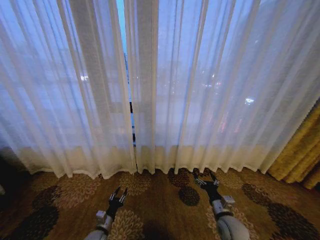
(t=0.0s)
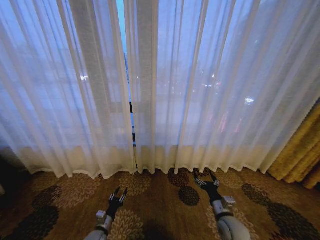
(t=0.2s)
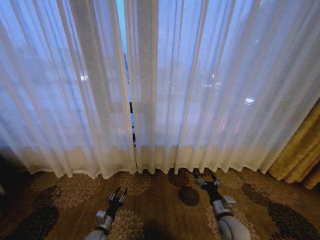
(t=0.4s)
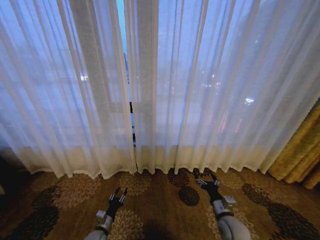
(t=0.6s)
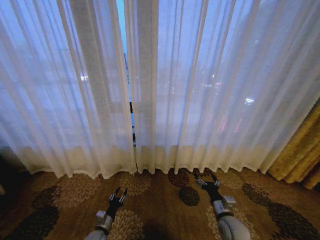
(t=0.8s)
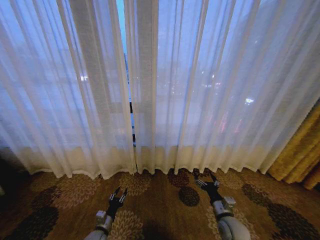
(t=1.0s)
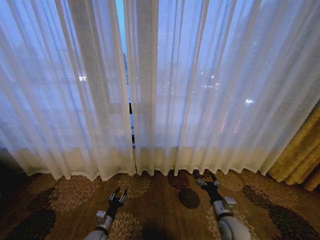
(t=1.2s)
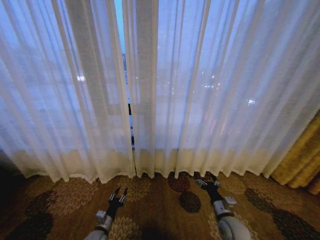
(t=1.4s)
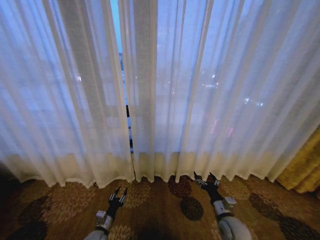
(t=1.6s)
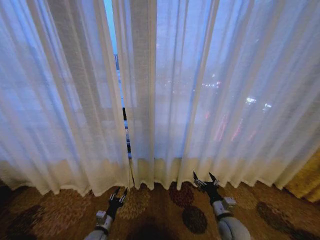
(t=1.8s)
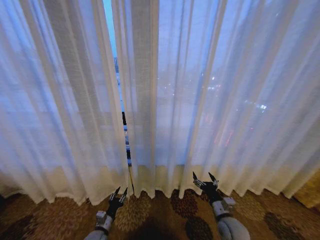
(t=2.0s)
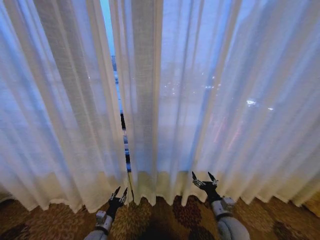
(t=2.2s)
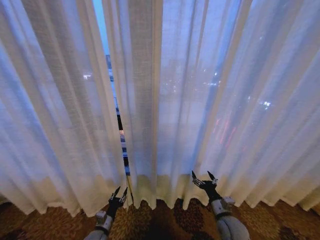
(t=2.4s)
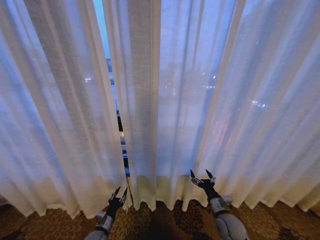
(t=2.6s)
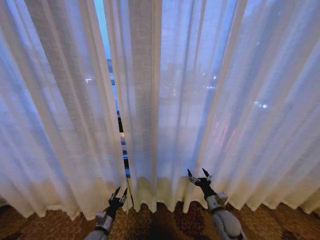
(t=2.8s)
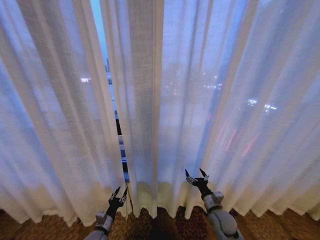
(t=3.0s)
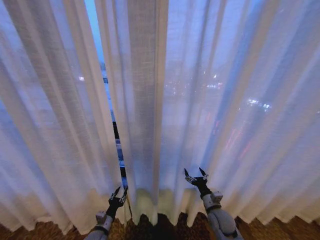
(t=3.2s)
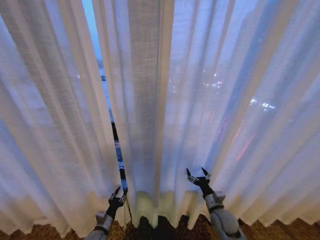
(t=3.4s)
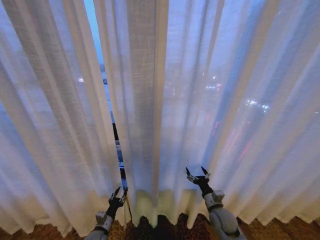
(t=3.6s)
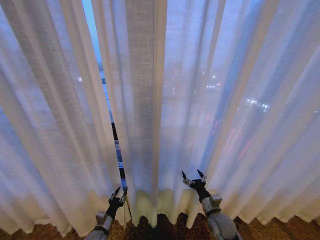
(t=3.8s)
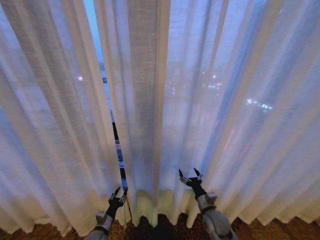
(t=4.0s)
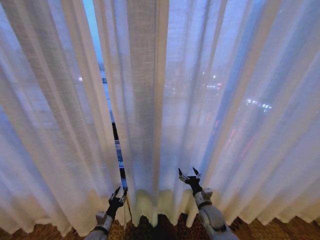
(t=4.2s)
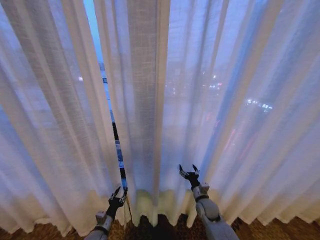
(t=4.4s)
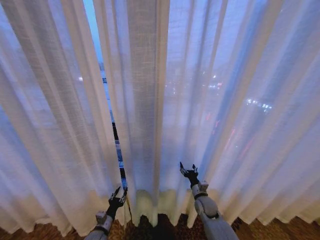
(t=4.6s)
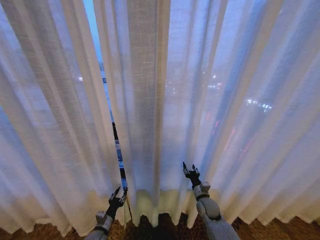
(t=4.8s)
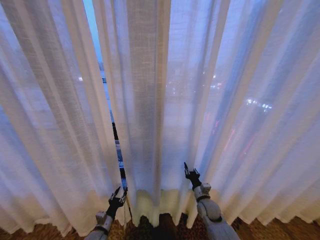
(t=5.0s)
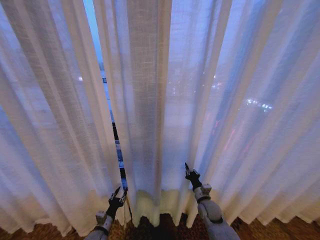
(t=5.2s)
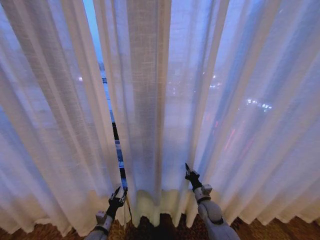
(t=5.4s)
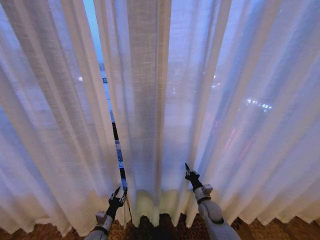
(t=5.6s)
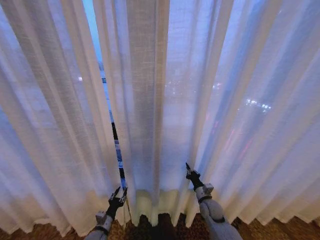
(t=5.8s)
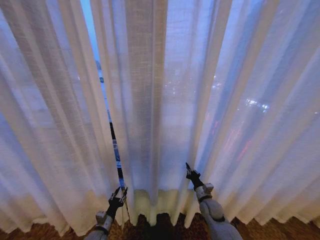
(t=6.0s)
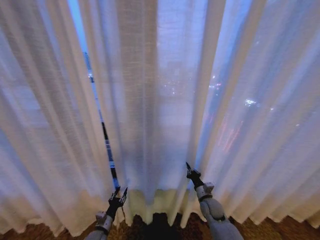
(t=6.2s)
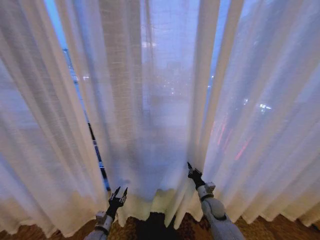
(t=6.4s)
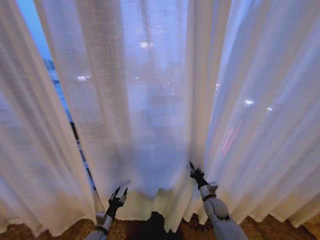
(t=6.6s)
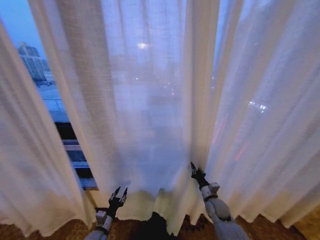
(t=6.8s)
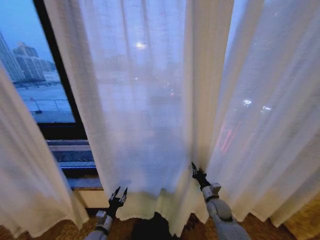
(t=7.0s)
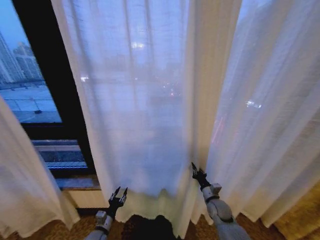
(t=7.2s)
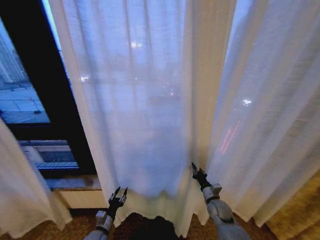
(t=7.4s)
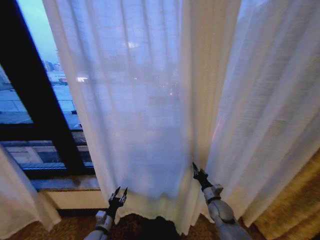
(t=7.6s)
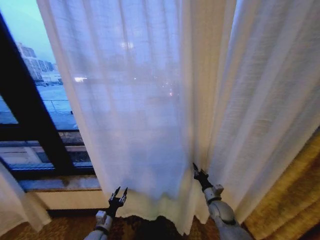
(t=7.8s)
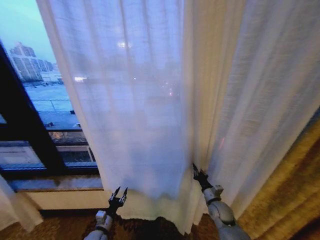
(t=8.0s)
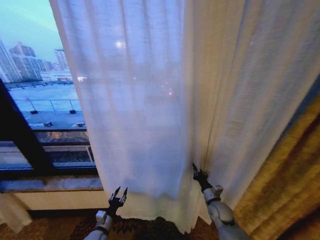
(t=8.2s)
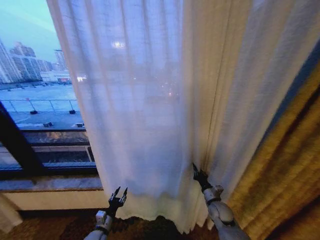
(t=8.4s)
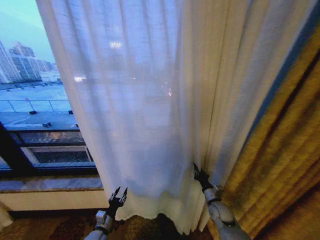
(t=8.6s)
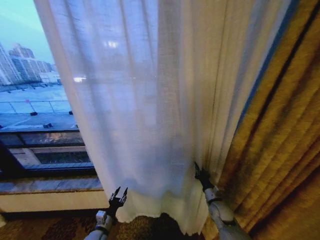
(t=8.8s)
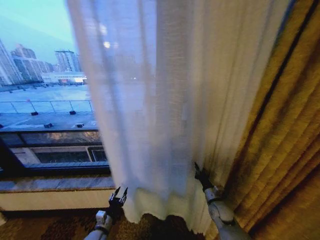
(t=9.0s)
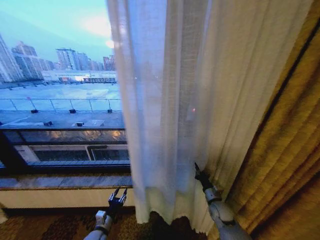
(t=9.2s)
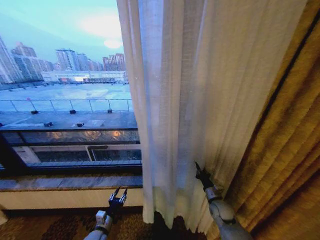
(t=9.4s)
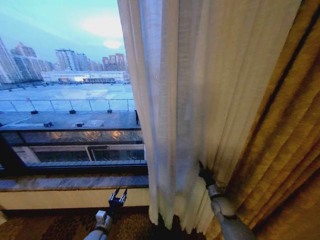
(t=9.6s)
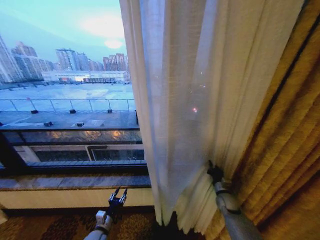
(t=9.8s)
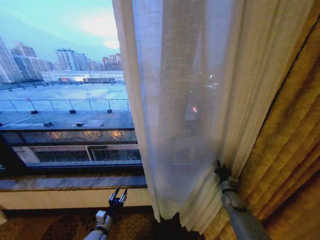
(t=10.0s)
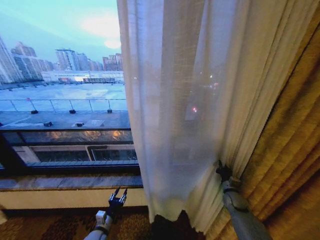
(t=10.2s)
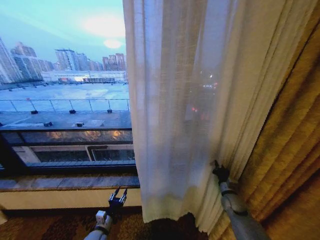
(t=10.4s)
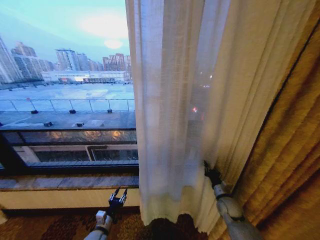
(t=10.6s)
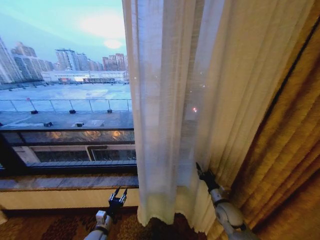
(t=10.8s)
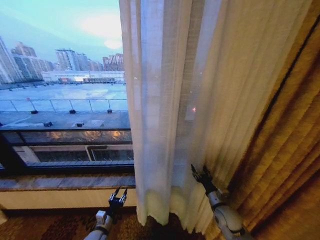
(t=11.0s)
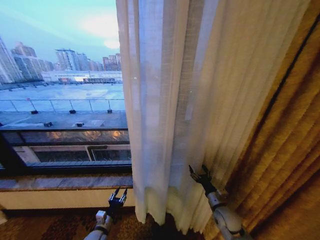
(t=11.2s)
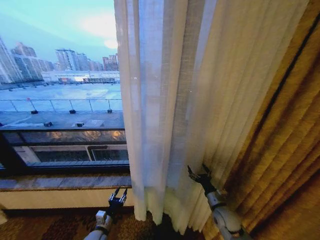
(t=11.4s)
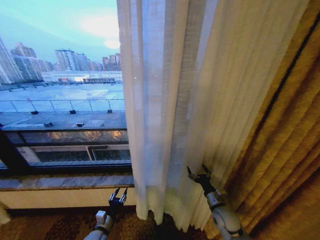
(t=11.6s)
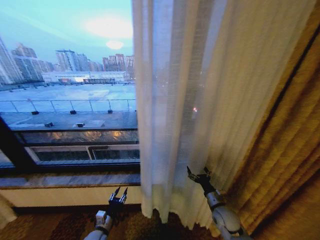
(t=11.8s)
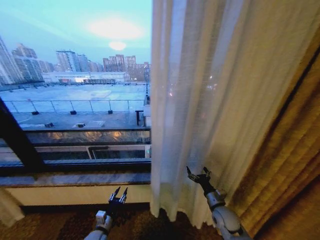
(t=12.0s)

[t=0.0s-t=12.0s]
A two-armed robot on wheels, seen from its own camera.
Task of the whole recording: Open the curtains by pulling them apart, changing their state from closed to fully open.
t=3.0s to t=4.4s: The right gripper goes roughly 5 cm forward.
t=4.4s to t=6.0s: The right gripper closes up.
t=9.0s to t=10.4s: The right gripper goes roughly 10 cm to the right.
t=10.4s to t=12.0s: The right gripper moves to the left and backward, roughly 10 cm, and opens up.

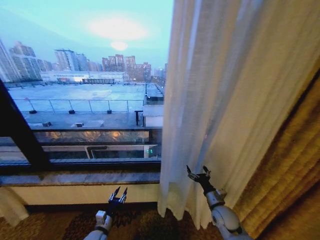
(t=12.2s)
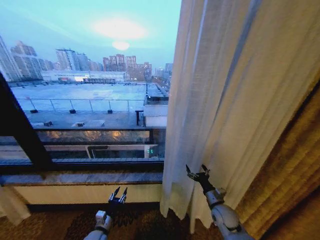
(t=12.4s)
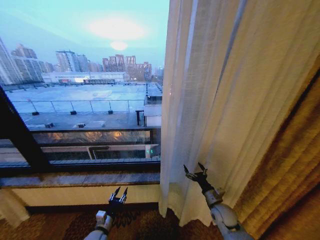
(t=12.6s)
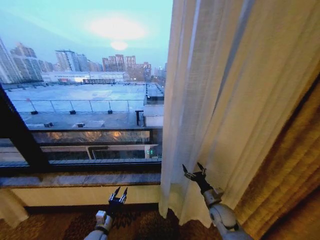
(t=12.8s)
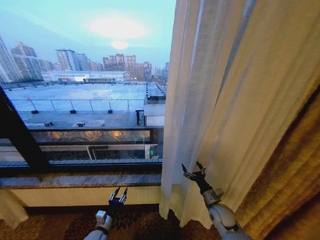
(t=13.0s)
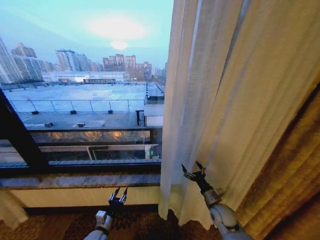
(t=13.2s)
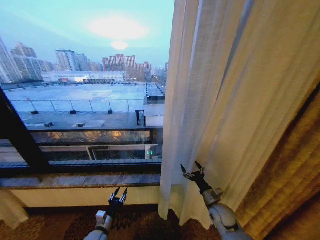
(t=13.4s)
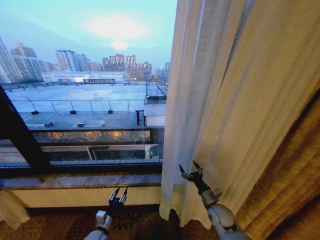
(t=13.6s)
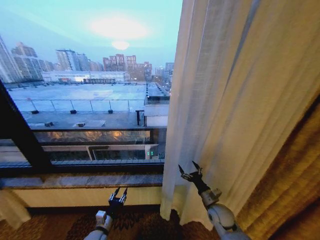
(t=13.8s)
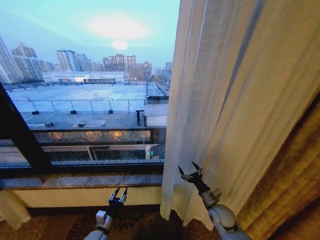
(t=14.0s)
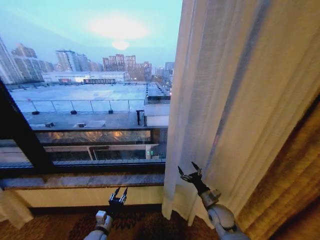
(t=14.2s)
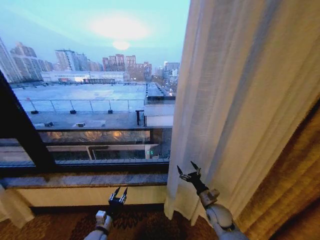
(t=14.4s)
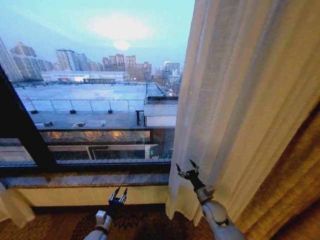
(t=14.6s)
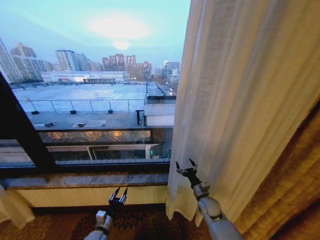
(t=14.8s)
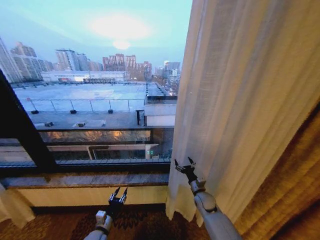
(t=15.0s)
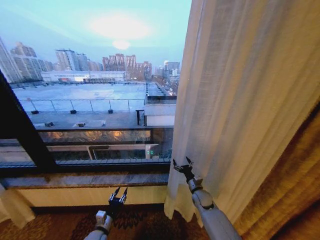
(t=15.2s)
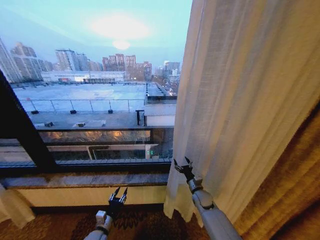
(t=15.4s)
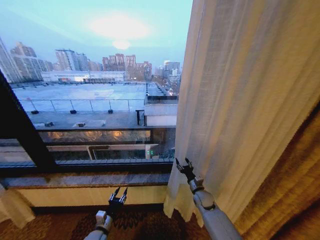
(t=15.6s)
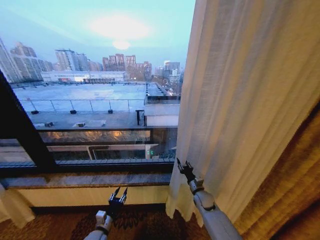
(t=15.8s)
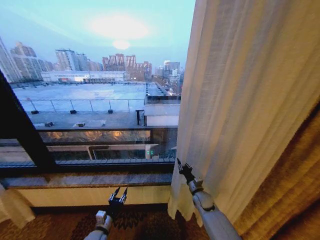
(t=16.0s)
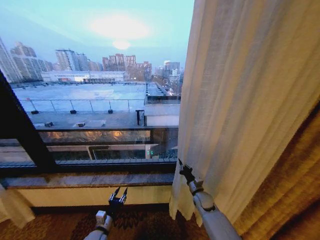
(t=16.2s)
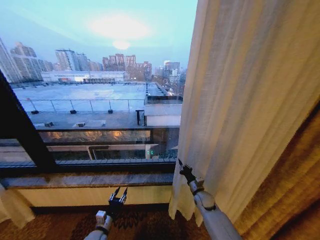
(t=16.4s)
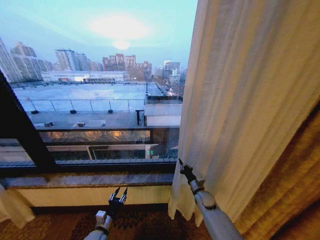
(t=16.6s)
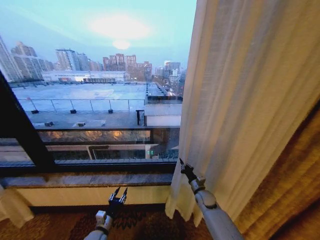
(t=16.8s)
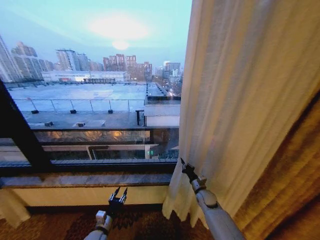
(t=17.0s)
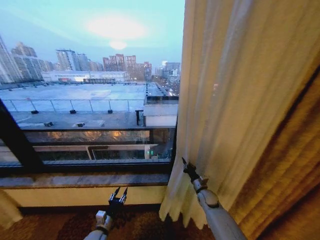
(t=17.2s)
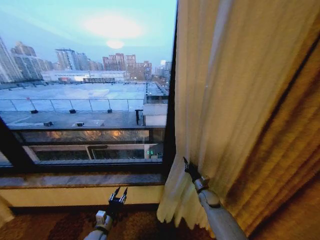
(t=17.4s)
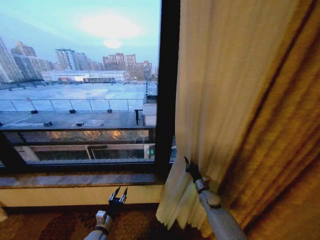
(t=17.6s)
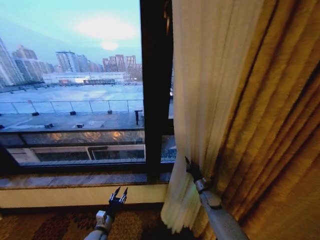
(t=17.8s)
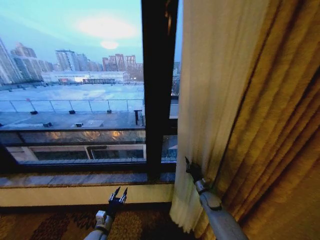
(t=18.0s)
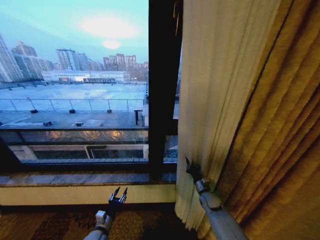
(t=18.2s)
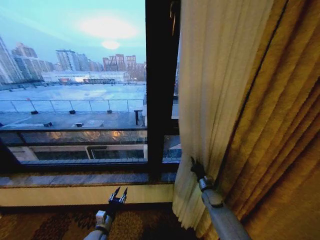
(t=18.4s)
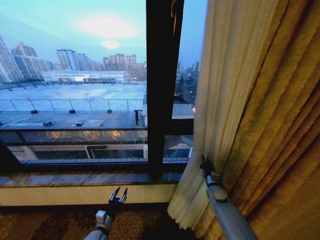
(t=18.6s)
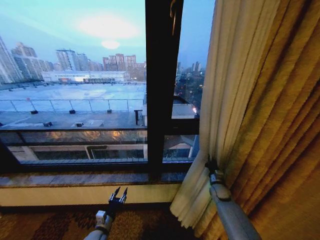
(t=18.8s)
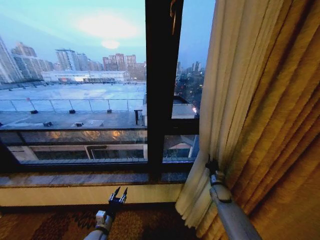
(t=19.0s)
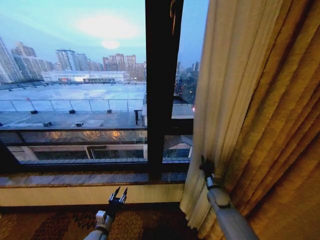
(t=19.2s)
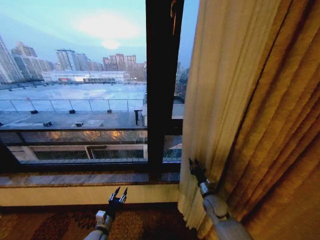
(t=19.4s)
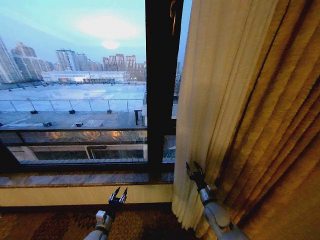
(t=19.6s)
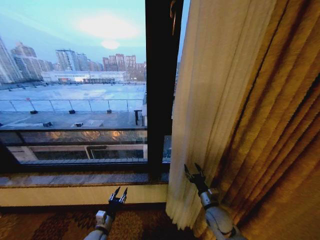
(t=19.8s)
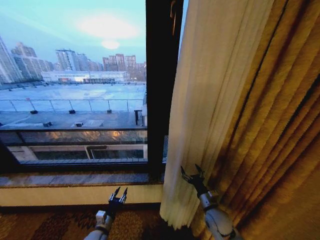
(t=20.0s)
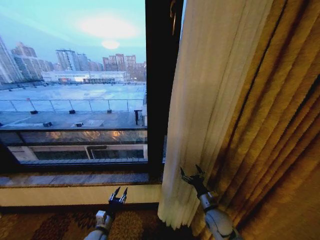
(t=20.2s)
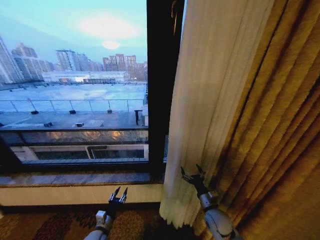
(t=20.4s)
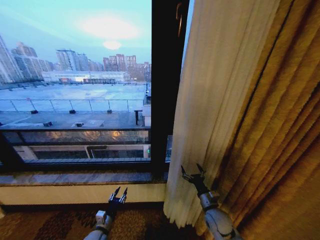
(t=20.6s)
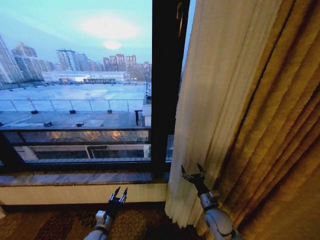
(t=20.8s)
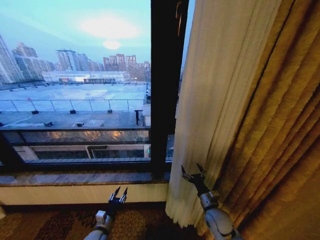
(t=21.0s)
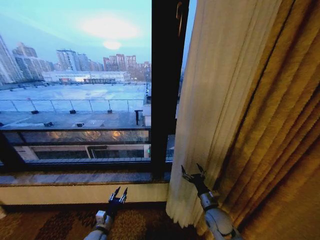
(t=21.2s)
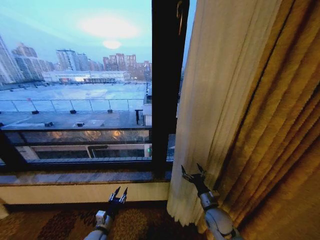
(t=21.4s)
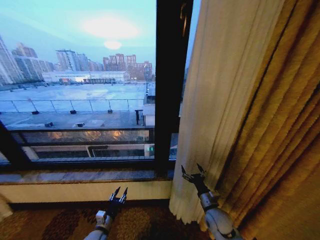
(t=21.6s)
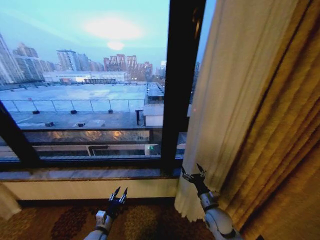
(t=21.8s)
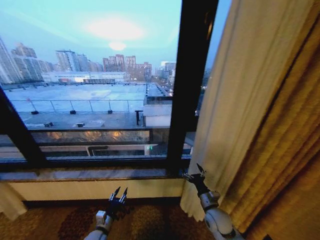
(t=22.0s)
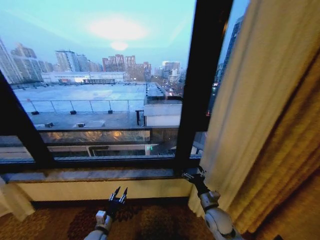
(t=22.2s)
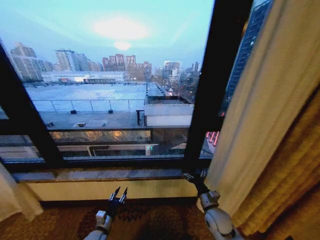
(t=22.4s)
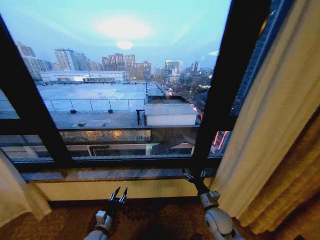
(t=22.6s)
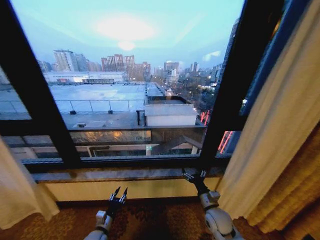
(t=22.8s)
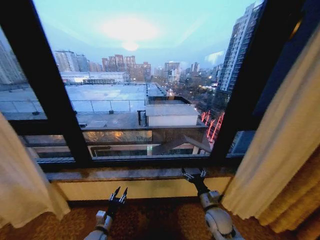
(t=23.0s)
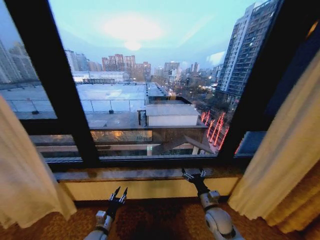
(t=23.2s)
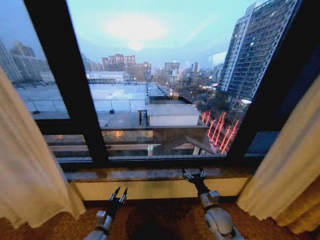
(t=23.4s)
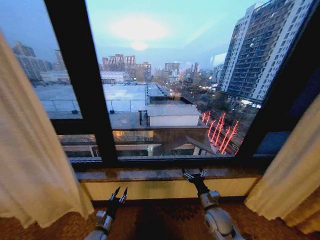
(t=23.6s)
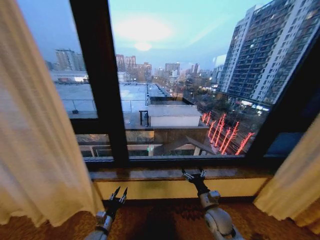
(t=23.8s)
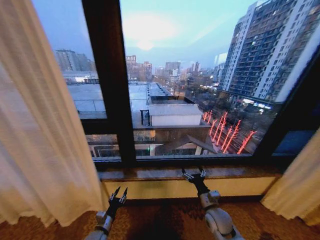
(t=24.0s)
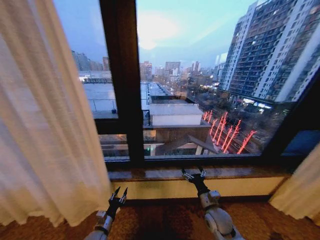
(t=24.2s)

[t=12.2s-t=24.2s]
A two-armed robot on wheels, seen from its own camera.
Task of the whole recording: Open the curtains by pulling them apart, changing their state from closed to fully open.
t=12.2s to t=13.8s: There are only small adjustments of the grippers.
t=13.8s to t=15.2s: The right gripper is displaced forward by approximately 10 cm.
t=15.2s to t=16.6s: The right gripper closes up.
t=18.2s to t=19.8s: The right gripper moves backward and upward, about 10 cm, and opens its fingers.
t=19.8s to t=21.2s: The two grippers keep their place.
